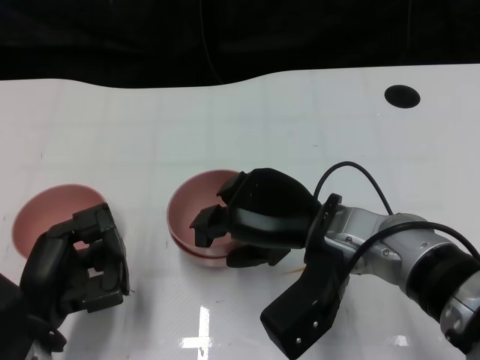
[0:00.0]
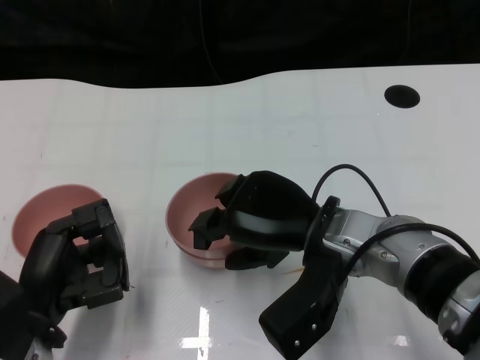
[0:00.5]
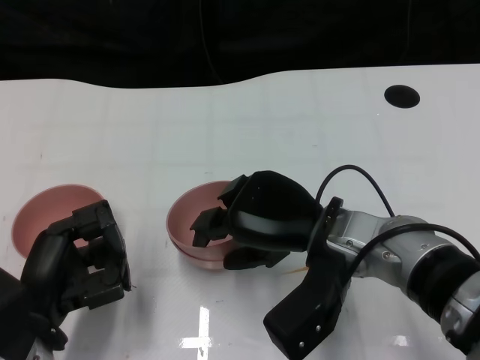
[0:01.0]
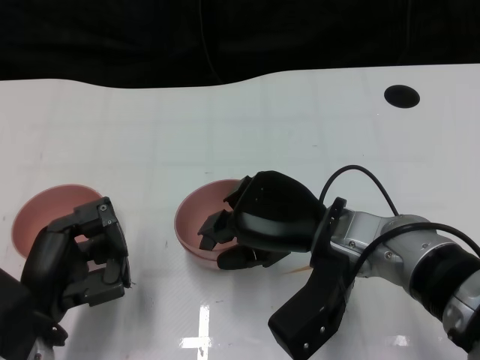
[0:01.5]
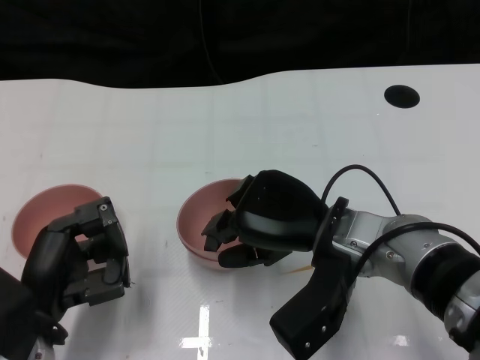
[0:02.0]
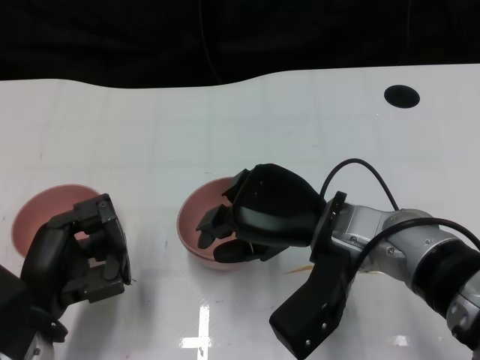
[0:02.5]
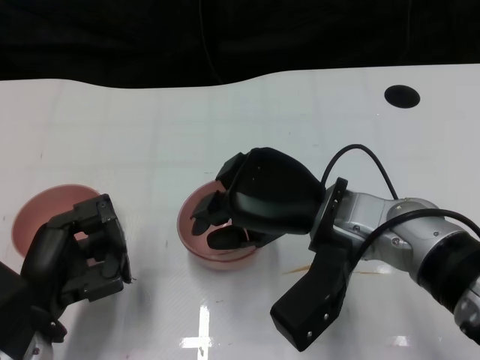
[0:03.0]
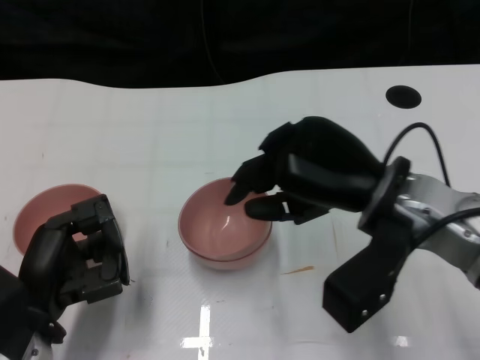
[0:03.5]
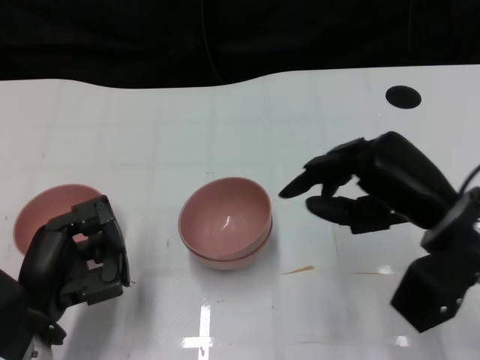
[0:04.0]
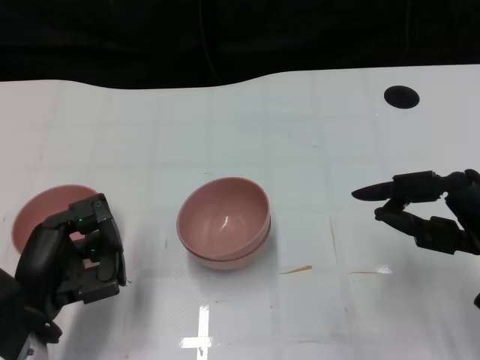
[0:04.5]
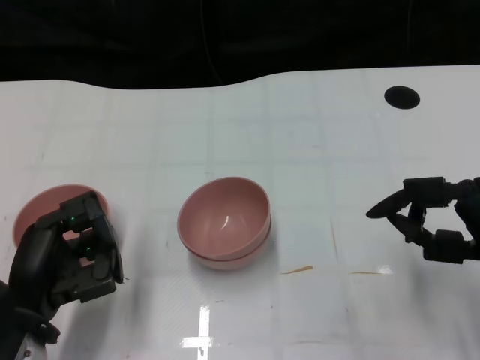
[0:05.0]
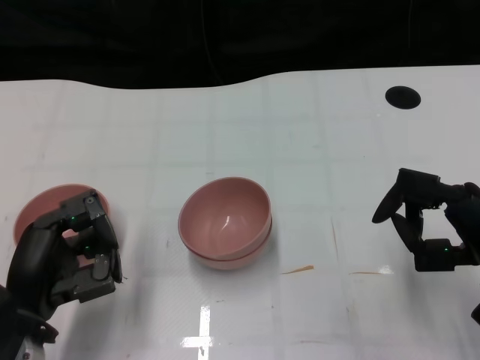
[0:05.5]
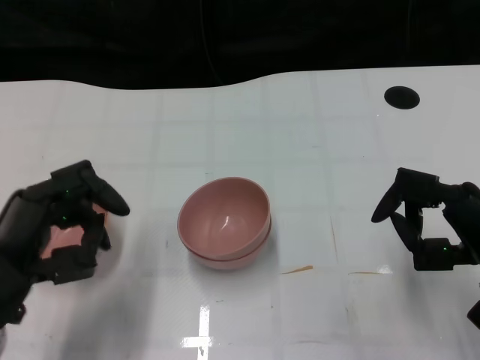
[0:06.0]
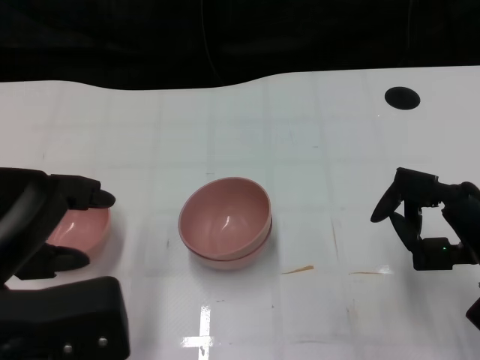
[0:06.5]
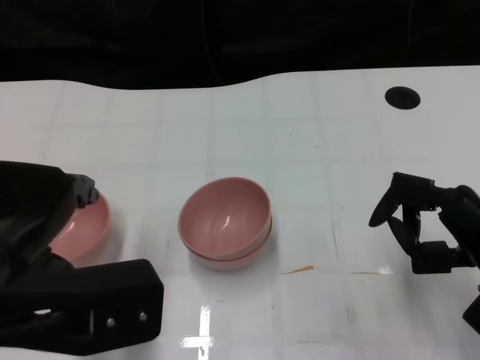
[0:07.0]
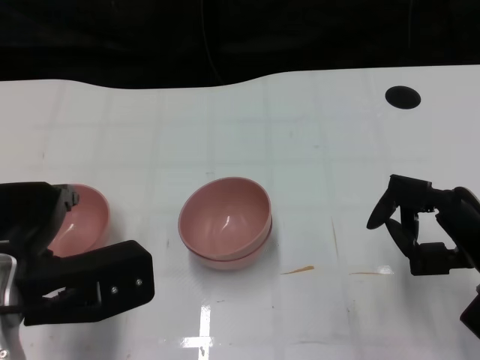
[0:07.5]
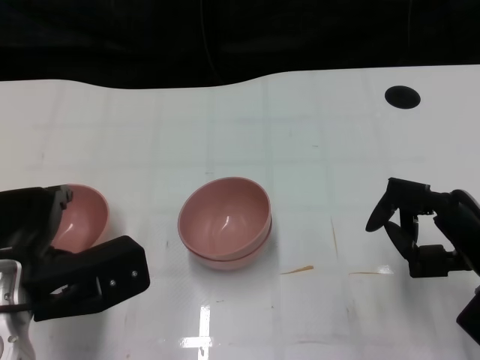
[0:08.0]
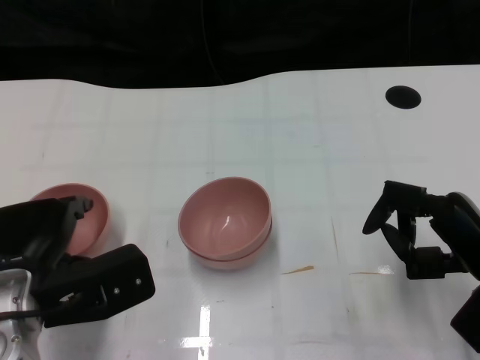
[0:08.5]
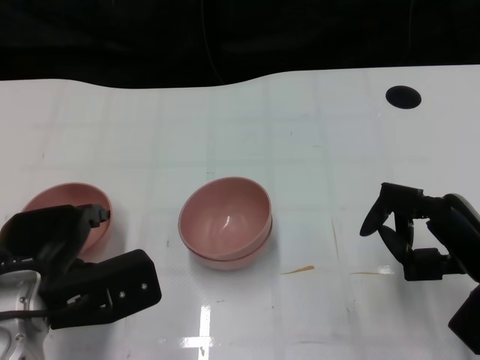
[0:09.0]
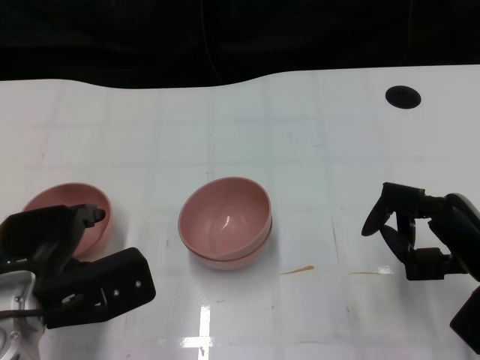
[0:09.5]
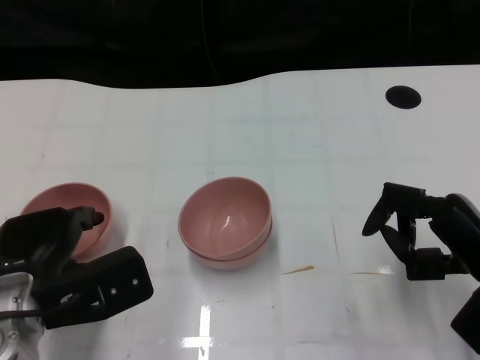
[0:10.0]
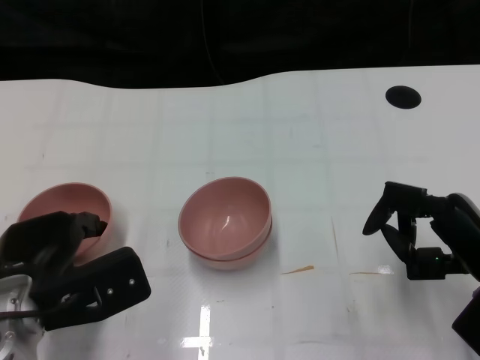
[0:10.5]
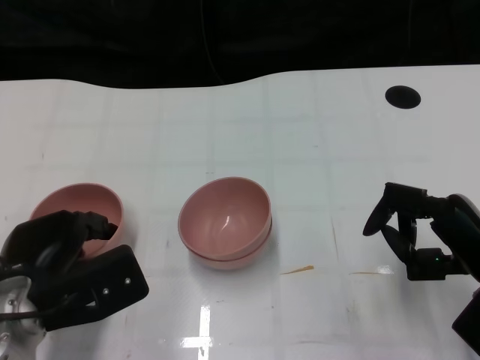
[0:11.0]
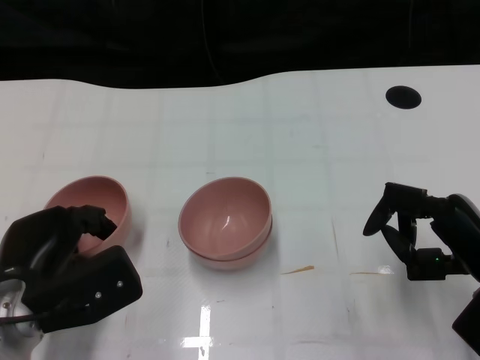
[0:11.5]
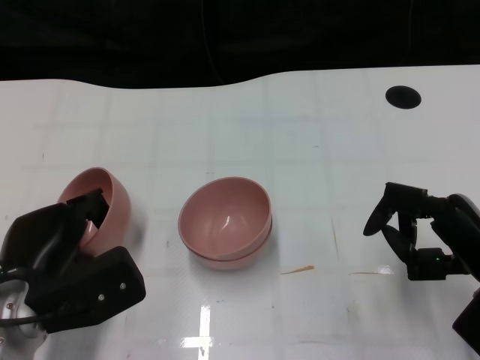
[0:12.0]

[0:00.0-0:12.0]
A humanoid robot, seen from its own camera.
Task of the whole recording: Pick up the bowl on one side of the table and place it on top of the middle bowl, then pick up the bowl on the other side of the table and place it on top of the middle bowls.
Step, 0:00.0 to 0:03.0: Place the bowl on the right onto the bowl in the middle with right gripper.
0:00.0 to 0:02.0: Both hands stay put.
0:02.0 to 0:04.0: The right hand heads to the right, covering about 10 cm.
0:04.0 to 0:06.0: The right hand goes roughly 10 cm to the right and downward; the left hand is displaced upward by roughly 5 cm.
0:06.0 to 0:08.0: The left hand reaches approximately 10 cm upward, then returns.
0:08.0 to 0:10.0: The hands stay close to where they were, moving slightly.
0:10.0 to 0:12.0: The hands stay close to where they were, moving slightly.

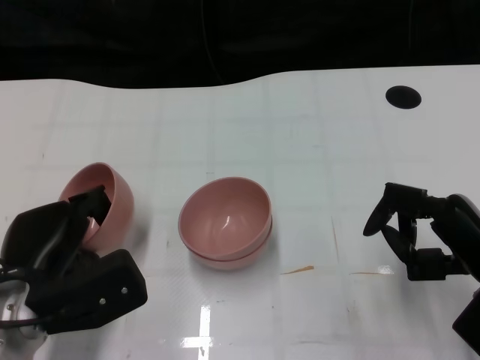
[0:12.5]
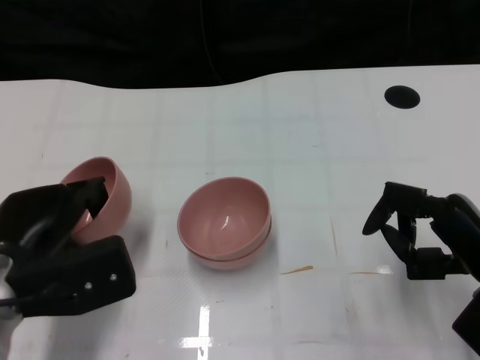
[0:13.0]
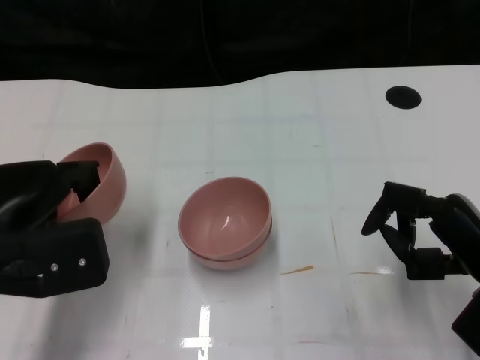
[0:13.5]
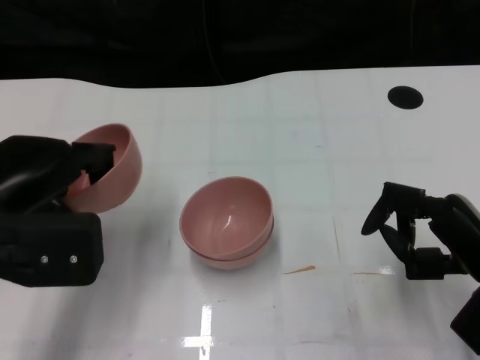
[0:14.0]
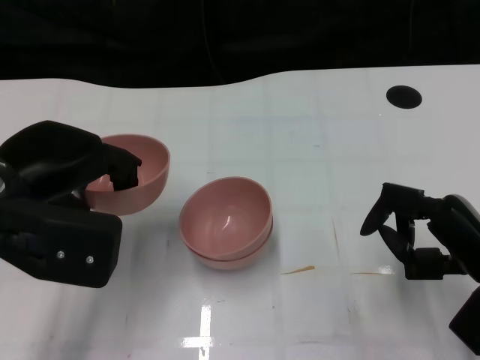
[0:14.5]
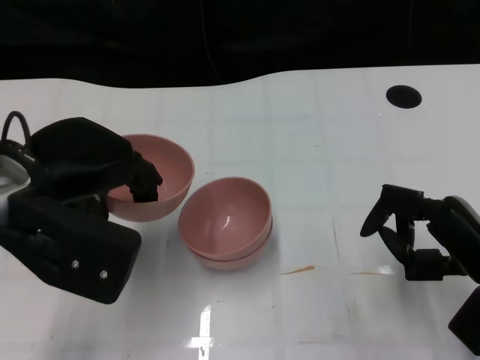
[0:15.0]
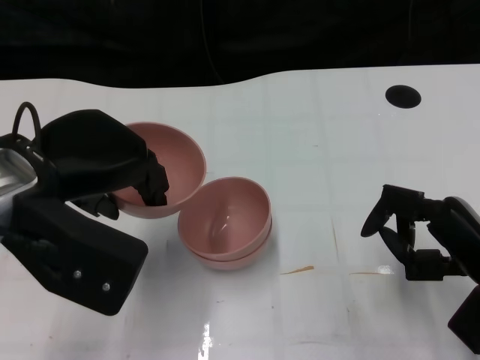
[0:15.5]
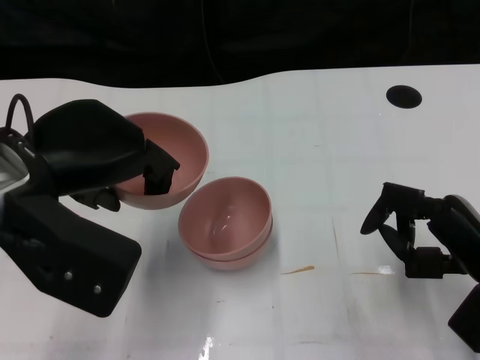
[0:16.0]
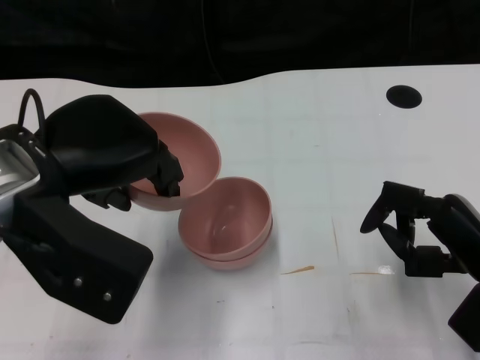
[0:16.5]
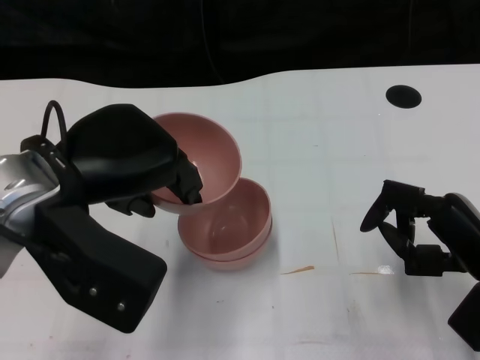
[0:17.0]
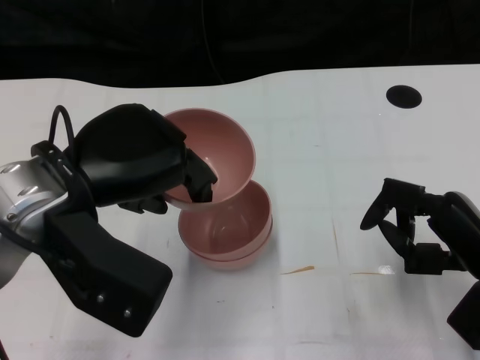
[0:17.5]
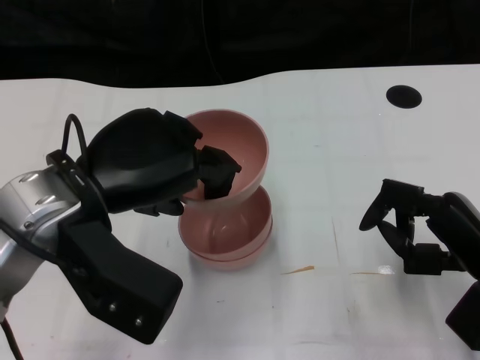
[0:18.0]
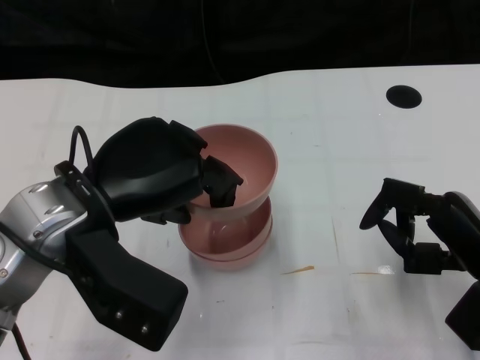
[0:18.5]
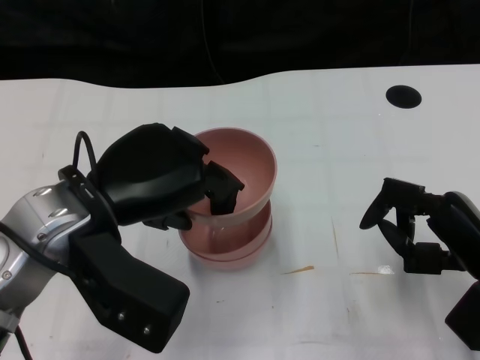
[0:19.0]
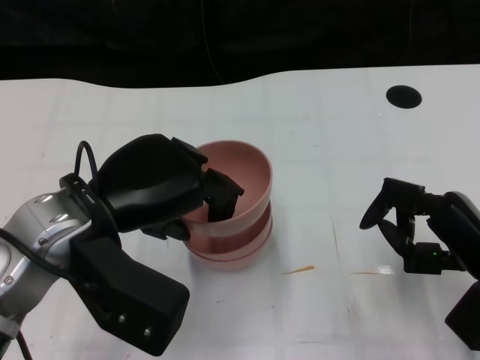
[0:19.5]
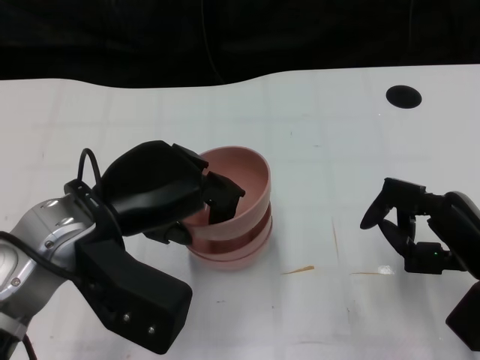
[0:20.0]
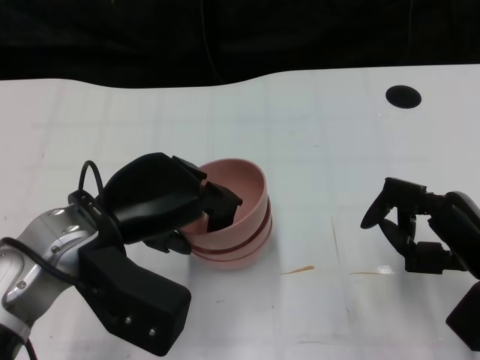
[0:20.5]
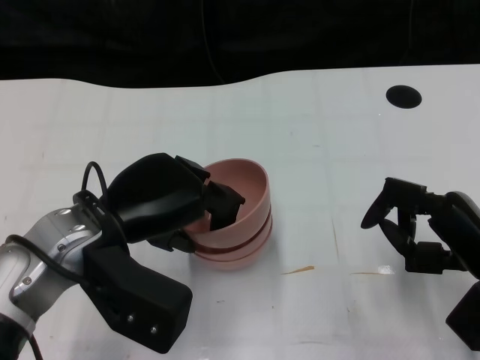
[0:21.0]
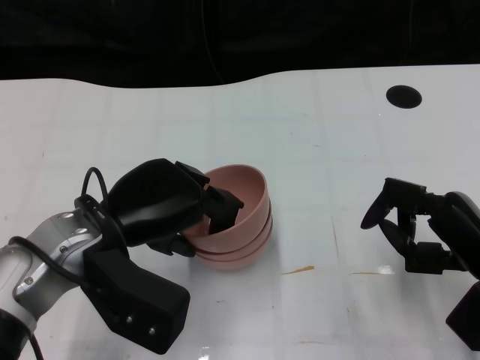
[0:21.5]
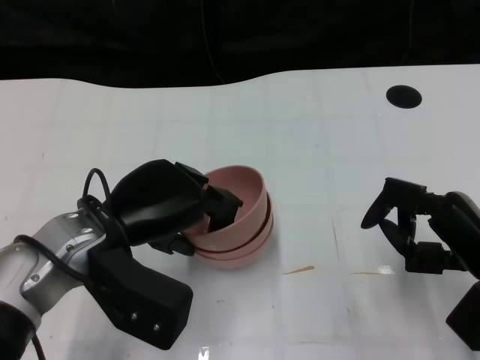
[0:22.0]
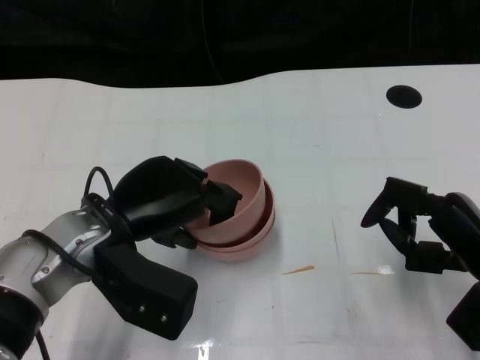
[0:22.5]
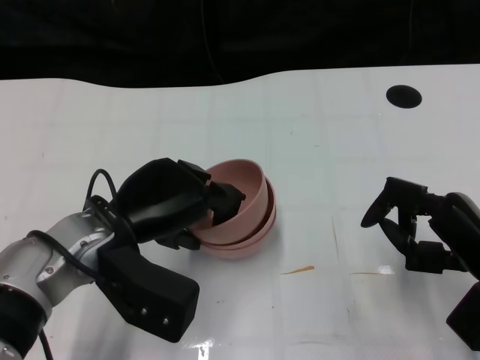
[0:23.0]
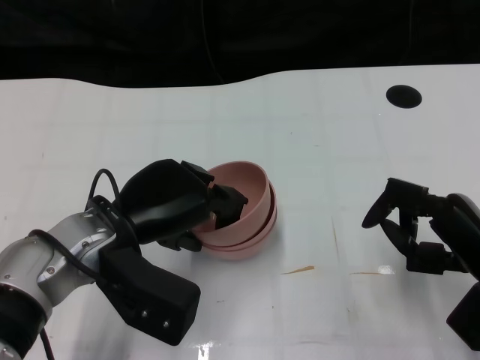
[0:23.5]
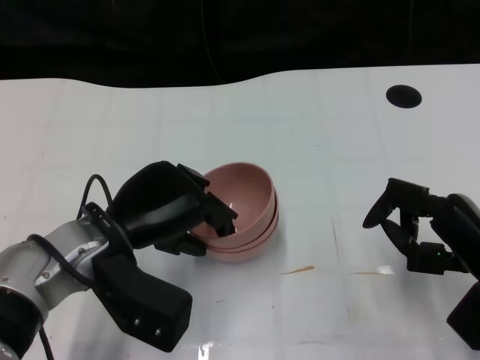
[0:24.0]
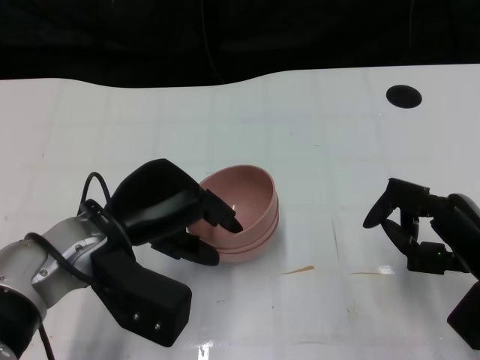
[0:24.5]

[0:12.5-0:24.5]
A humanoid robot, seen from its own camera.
Task of the whole recording: Pick up the bowl on one side of the table and place it on top of the middle bowl, then pick up the bowl on the other side of the table and place it on top of the middle bowls.
0:12.5 to 0:14.5: The left hand moves upward, about 10 cm.
0:14.5 to 0:16.5: The left hand moves about 5 cm.
0:18.5 to 0:20.5: The hands stay close to where they were, moving slightly.
0:20.5 to 0:24.5: The hands stay close to where they were, moving slightly.

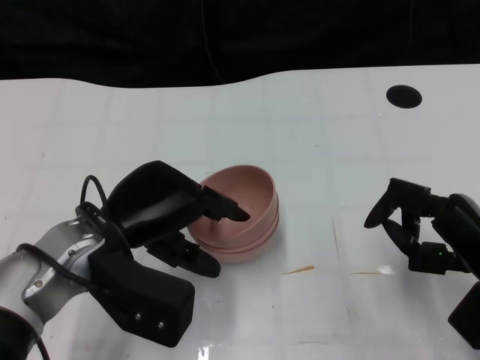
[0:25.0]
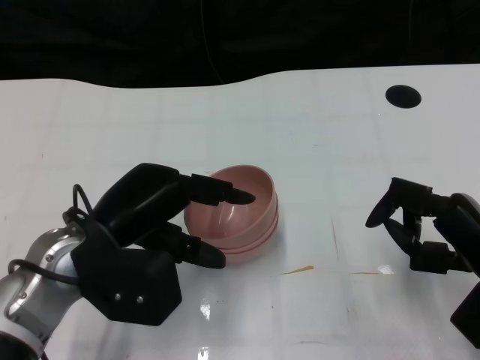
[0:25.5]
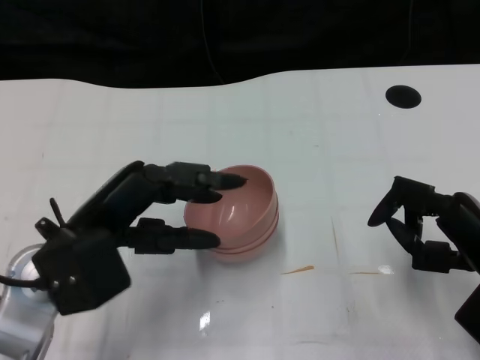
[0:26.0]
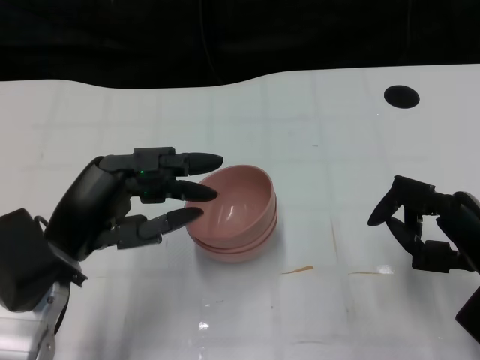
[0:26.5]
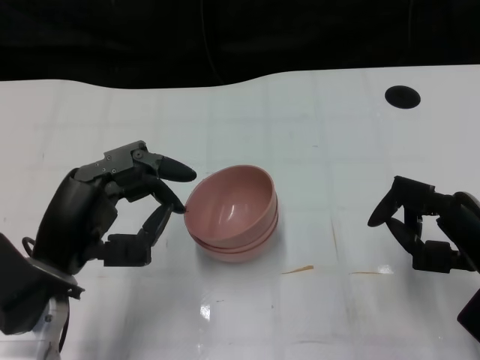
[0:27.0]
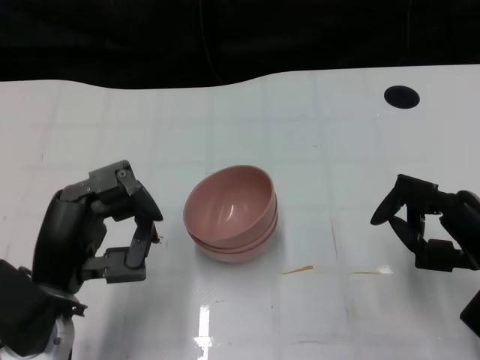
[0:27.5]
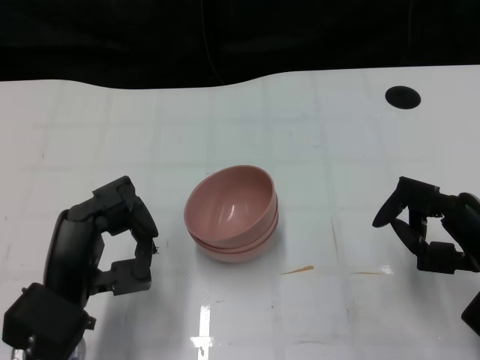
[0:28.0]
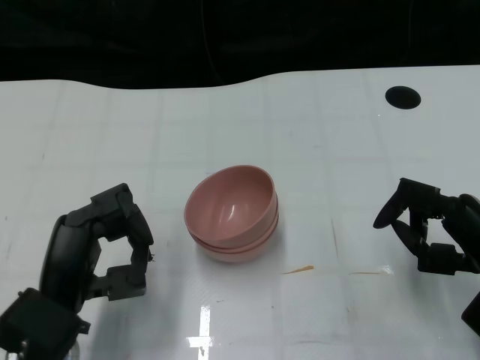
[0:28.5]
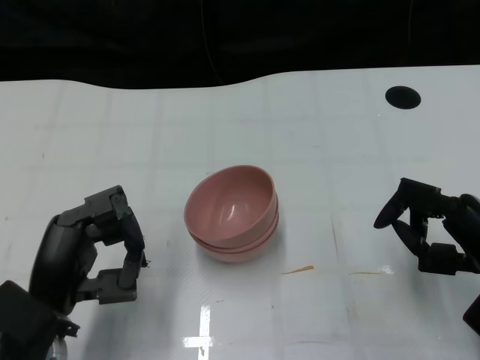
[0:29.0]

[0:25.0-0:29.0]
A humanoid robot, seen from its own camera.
Task of the whole recording: Pick up the bowl on one side of the table and place it on top of the middle bowl, then pick up the bowl on the other side of the table and place it on top of the middle bowls.
0:25.0 to 0:27.0: The left hand changes place by about 5 cm.
0:27.0 to 0:29.0: The left hand shifts by some 5 cm.
